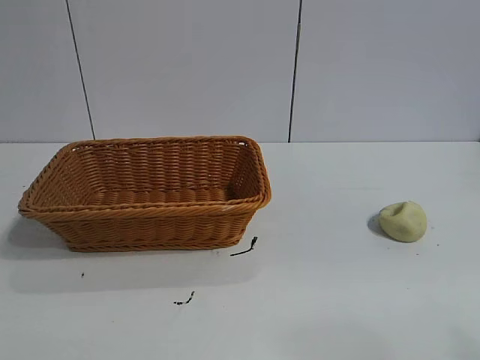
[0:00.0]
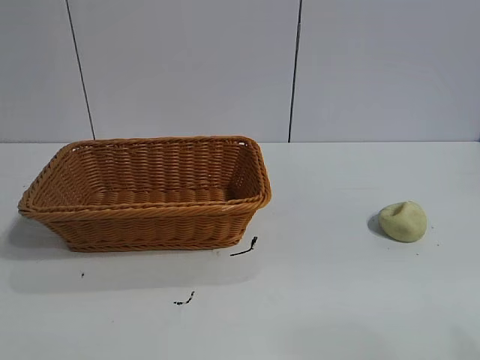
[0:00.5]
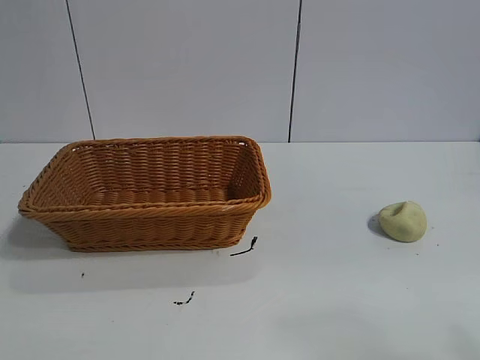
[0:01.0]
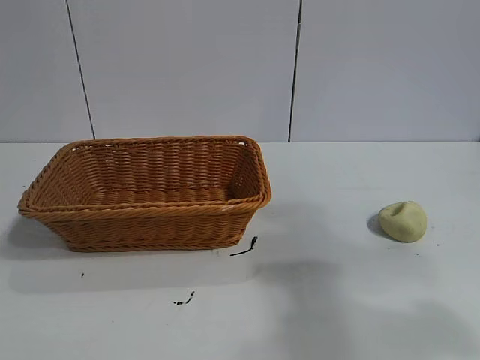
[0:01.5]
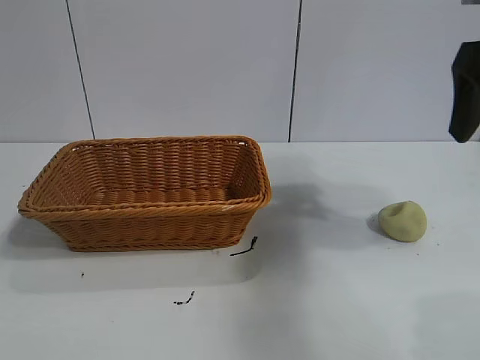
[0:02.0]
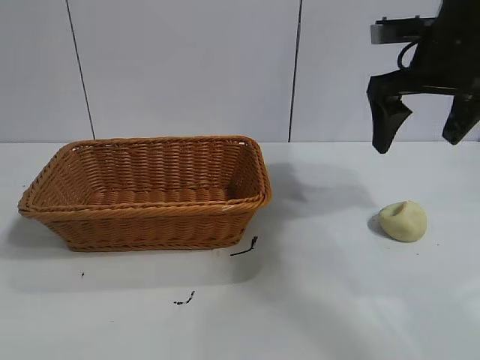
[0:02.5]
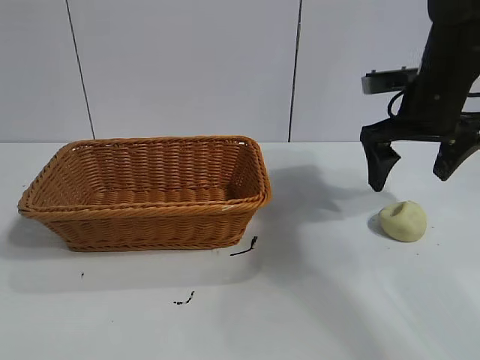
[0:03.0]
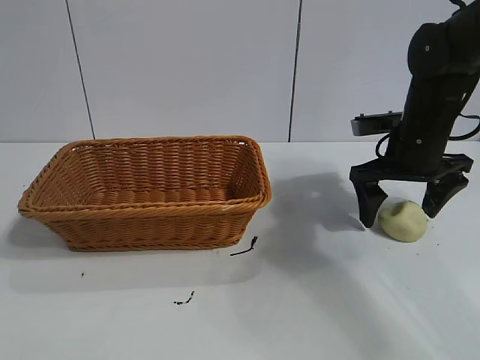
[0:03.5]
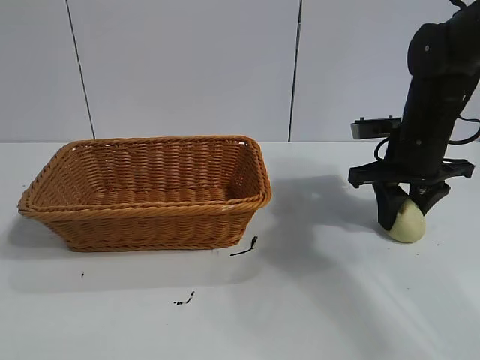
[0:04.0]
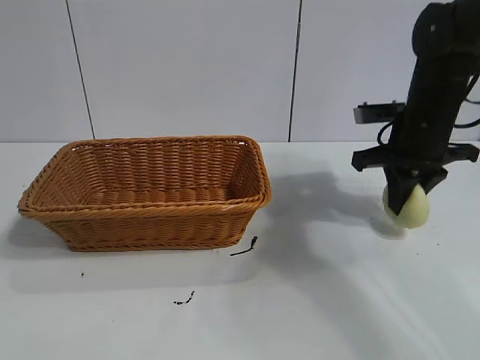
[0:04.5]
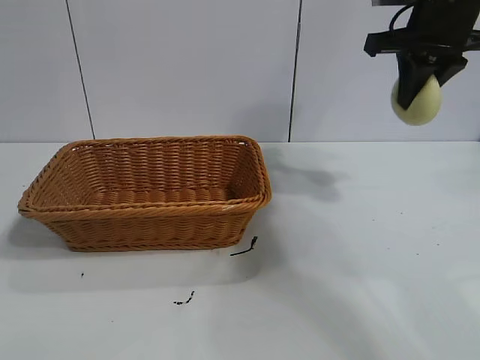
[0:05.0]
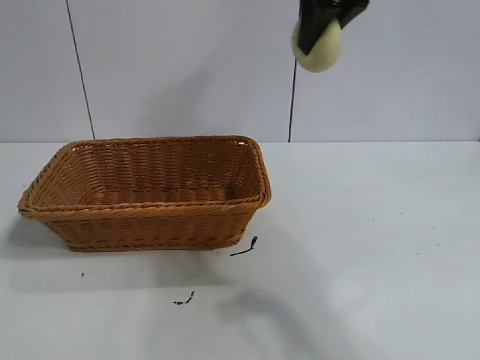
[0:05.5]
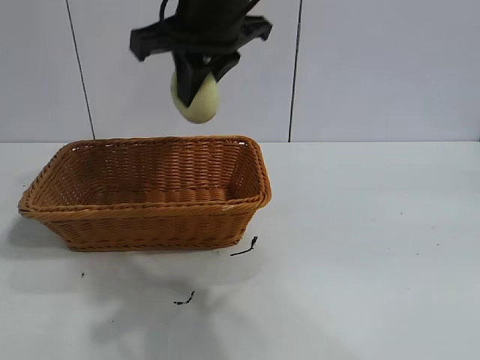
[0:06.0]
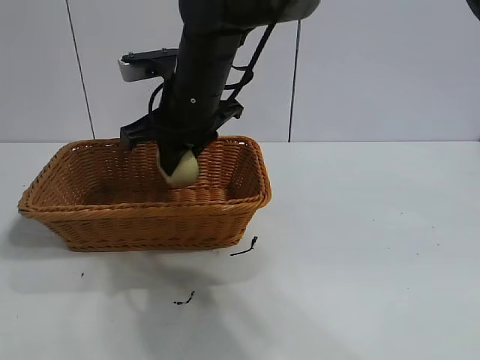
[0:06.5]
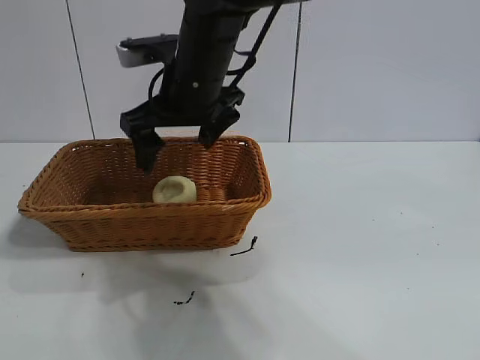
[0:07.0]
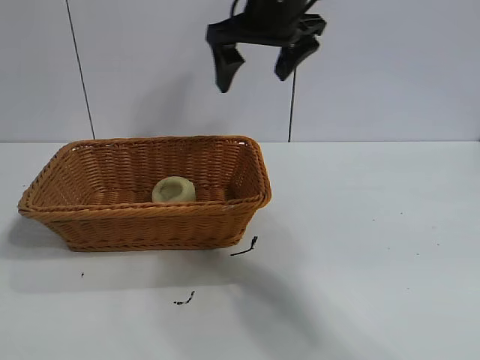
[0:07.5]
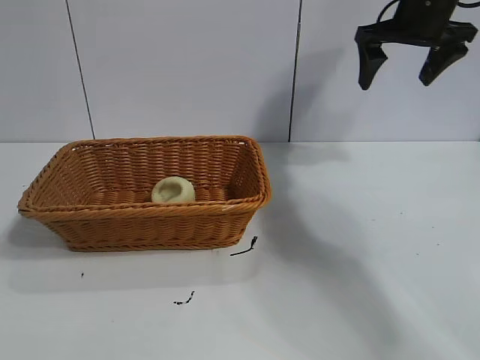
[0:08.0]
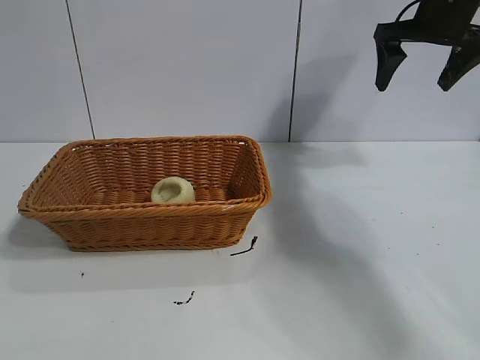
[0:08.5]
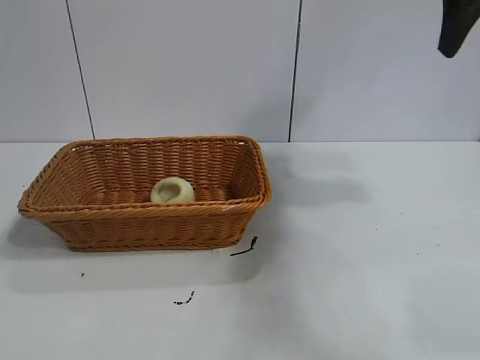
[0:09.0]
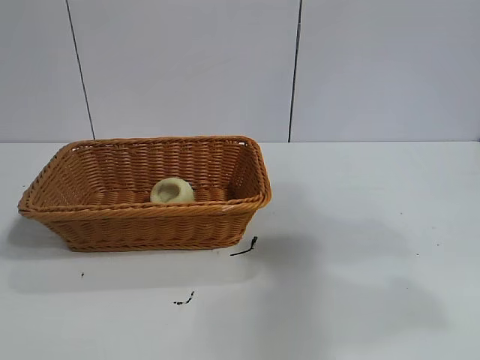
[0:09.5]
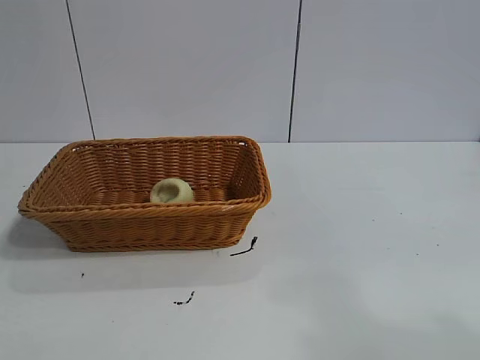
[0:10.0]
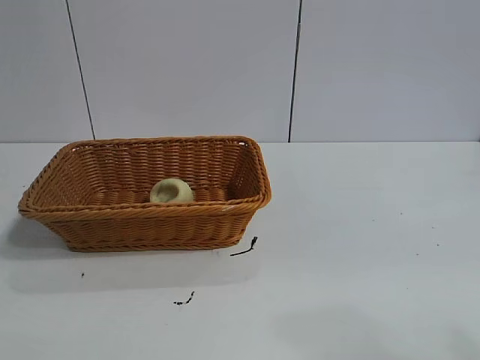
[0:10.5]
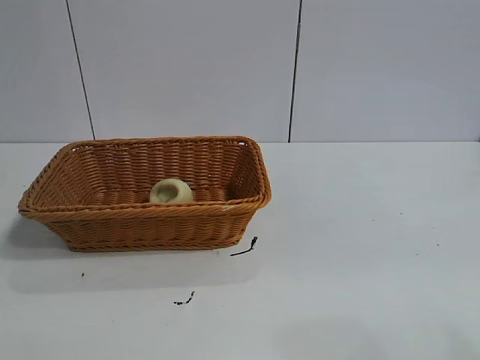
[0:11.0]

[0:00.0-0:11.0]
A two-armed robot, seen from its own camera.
Task of the whole recording: pick up the egg yolk pastry and put it into the basket.
Step, 0:01.0 to 0:04.0: Grasp egg yolk pastry with right gripper.
Step, 0:04.5 to 0:06.5: Place the egg yolk pastry in the basket with right gripper.
